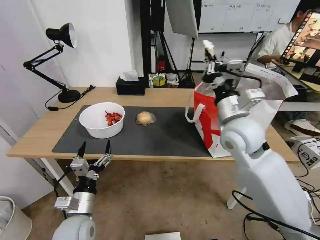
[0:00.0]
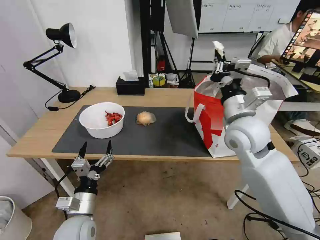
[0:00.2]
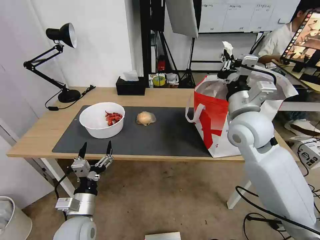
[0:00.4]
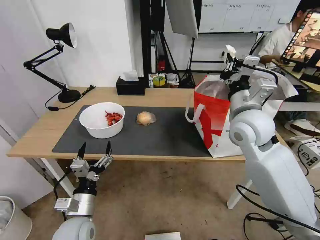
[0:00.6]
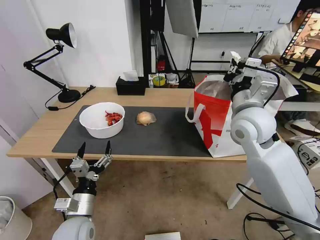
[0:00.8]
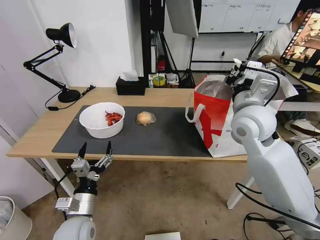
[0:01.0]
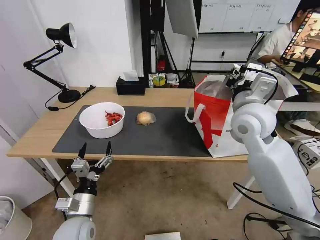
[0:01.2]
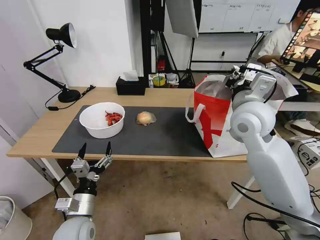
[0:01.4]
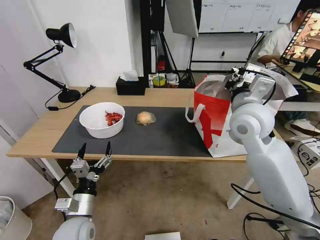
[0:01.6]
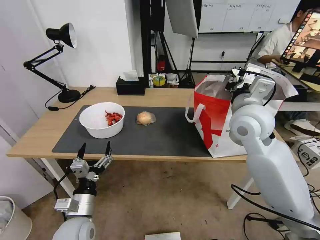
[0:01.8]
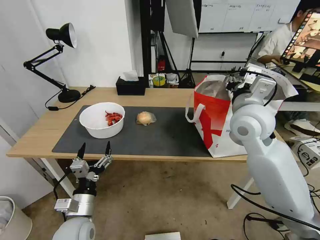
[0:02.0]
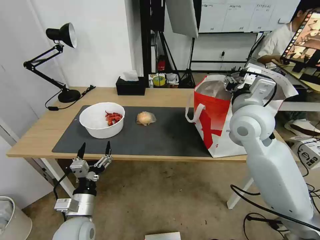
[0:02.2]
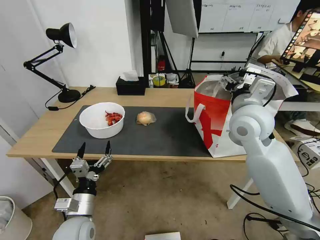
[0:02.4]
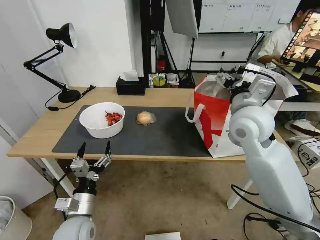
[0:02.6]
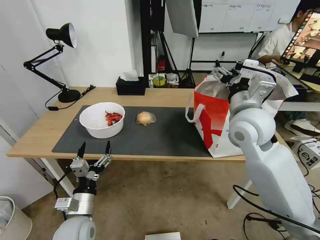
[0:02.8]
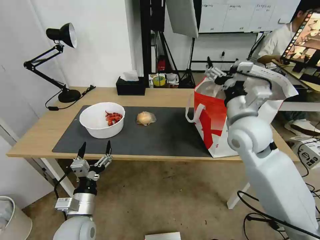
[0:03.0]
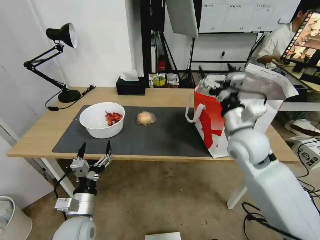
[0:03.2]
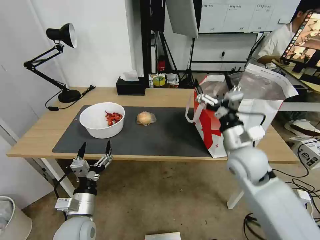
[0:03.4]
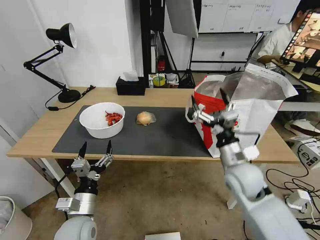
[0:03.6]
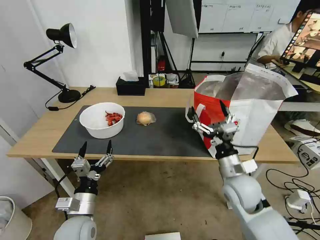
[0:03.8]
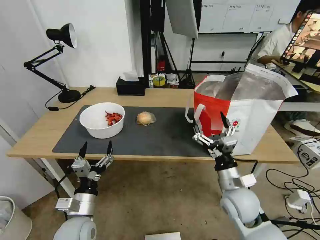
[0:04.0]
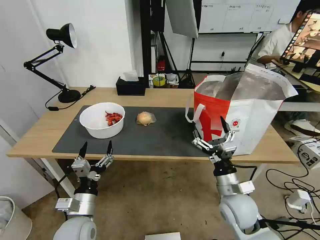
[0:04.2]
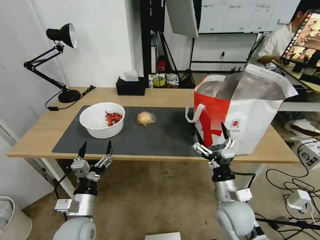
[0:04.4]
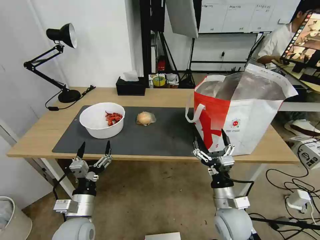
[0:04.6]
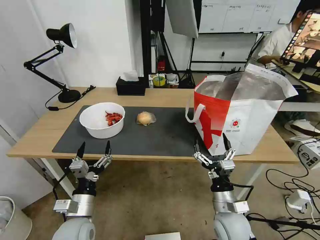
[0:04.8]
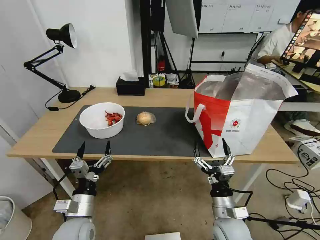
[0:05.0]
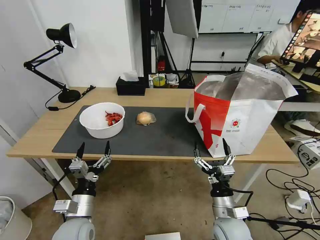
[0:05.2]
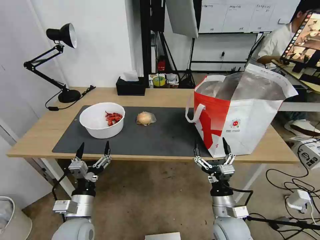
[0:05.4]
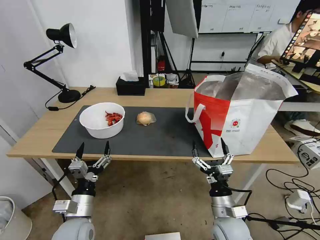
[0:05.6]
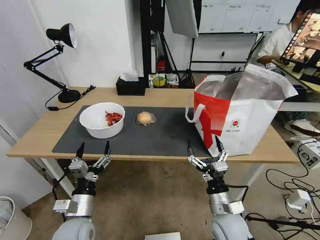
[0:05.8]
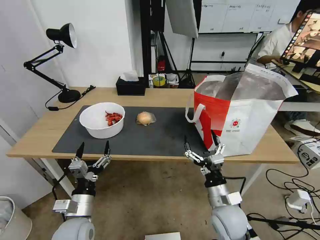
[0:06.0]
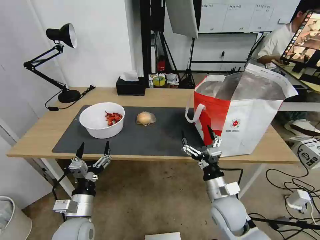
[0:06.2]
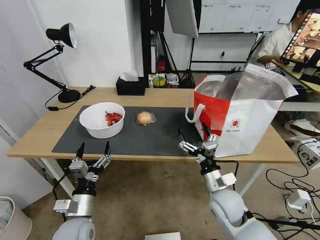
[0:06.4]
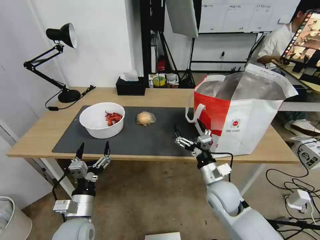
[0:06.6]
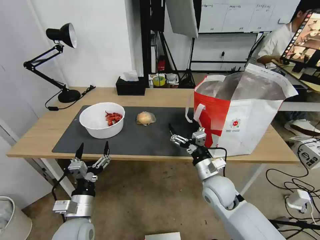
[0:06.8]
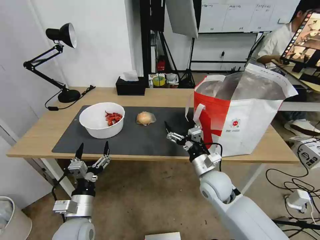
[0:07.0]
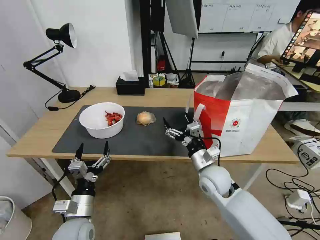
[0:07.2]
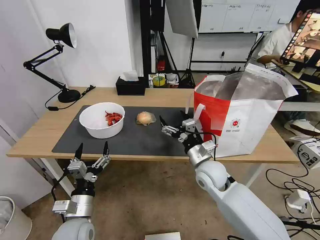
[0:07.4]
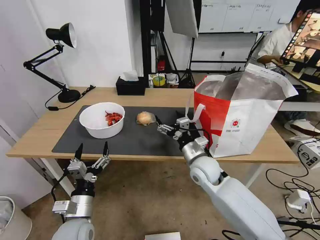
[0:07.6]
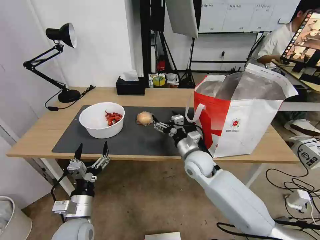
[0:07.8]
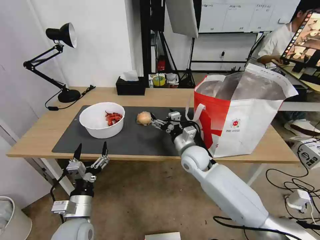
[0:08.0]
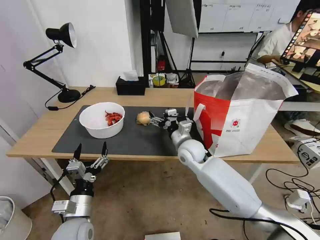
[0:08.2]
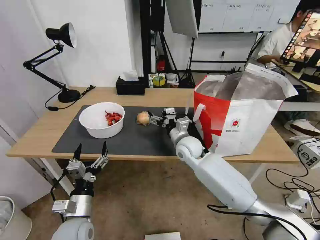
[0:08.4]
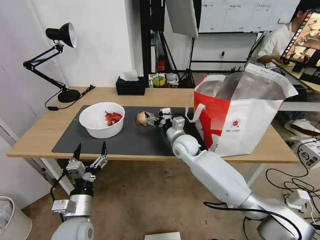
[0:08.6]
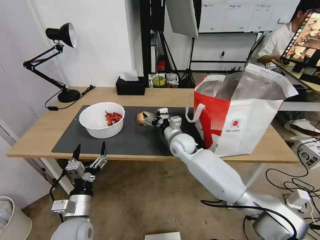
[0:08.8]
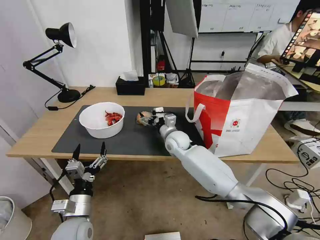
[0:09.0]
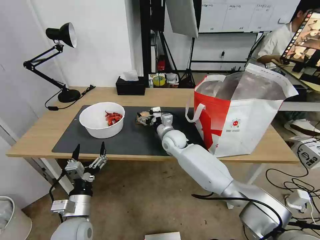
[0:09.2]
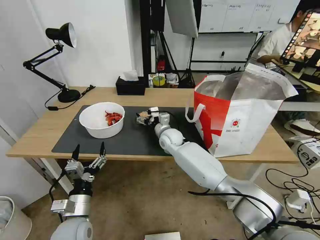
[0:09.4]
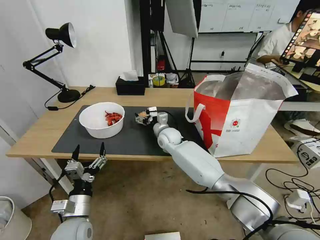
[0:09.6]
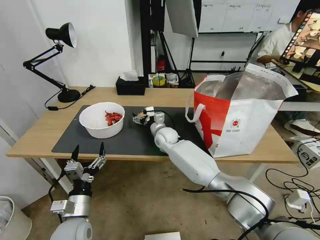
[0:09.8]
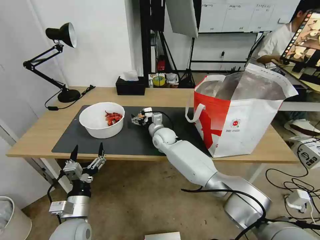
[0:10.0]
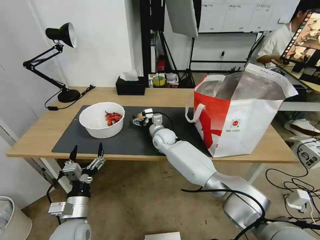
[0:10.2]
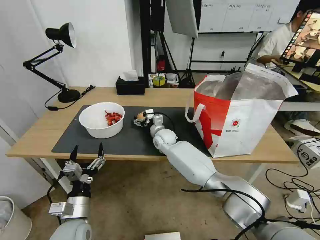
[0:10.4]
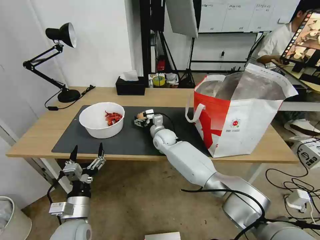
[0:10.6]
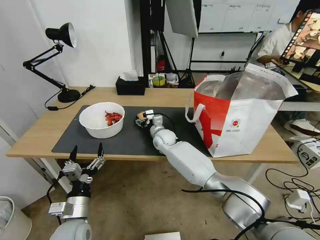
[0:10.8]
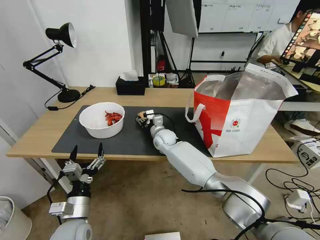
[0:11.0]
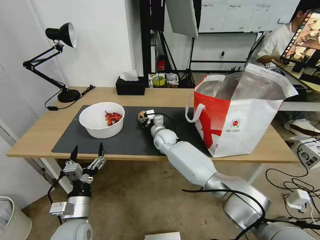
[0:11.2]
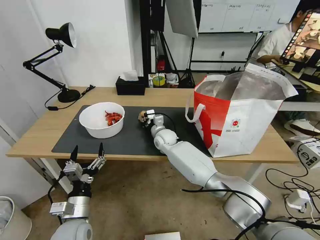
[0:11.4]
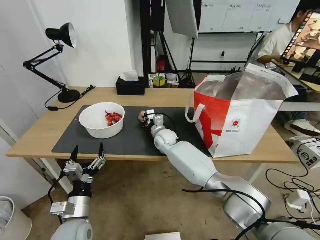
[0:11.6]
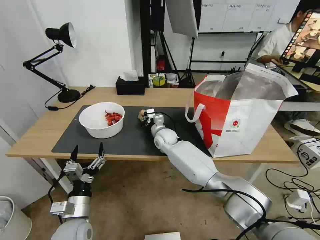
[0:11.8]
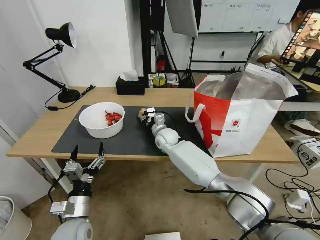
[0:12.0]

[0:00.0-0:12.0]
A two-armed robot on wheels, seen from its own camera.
Task of the whole recording: Pick up the trash from the table and place it into the takeout bag.
0:01.6 to 0:03.0: The right gripper opens up.
0:03.0 to 0:04.4: The right gripper travels downward and backward by approximately 25 cm.
0:04.4 to 0:06.0: The grippers stay close to where they were, moving slightly.
0:06.0 to 0:07.6: The right gripper travels forward by some 15 cm.
0:07.6 to 0:09.0: The right gripper goes some 15 cm forward and to the left.
0:09.0 to 0:10.4: The right gripper heads to the left, covering about 5 cm.
0:10.4 to 0:12.0: The right gripper closes up.

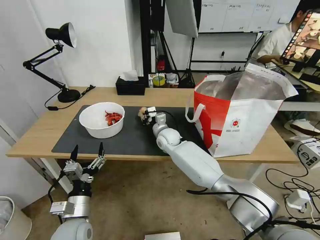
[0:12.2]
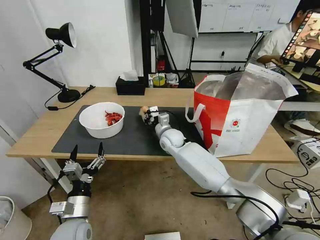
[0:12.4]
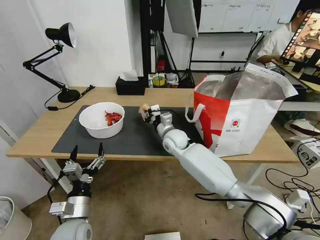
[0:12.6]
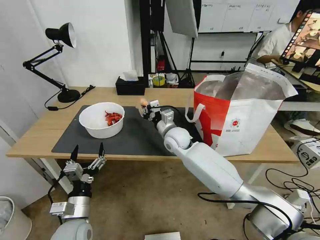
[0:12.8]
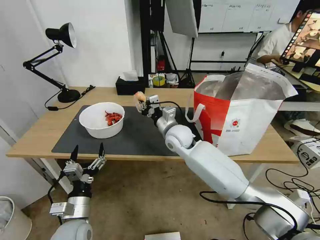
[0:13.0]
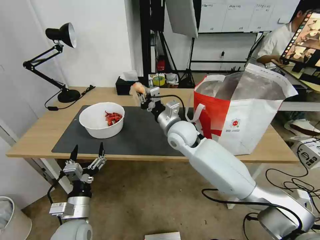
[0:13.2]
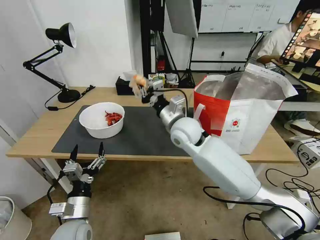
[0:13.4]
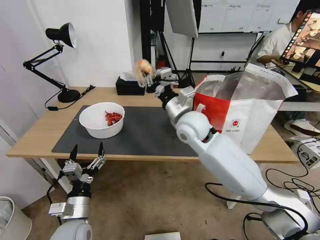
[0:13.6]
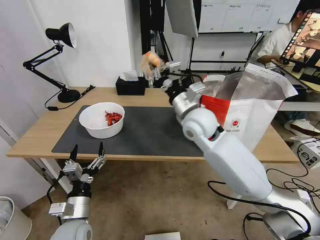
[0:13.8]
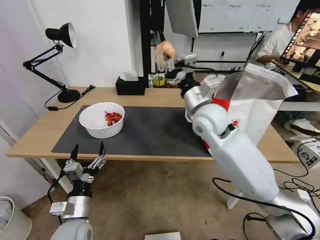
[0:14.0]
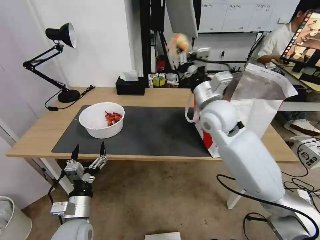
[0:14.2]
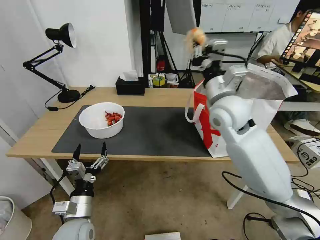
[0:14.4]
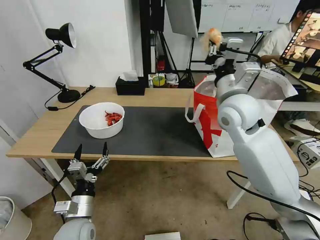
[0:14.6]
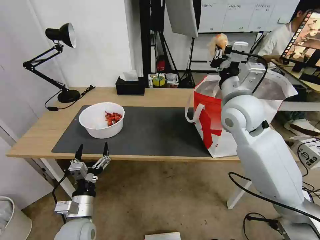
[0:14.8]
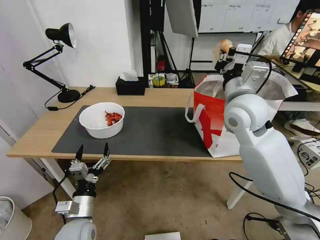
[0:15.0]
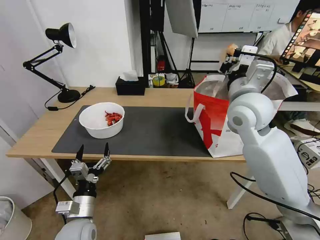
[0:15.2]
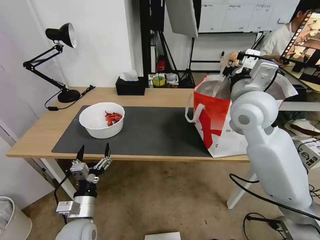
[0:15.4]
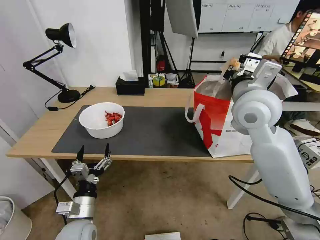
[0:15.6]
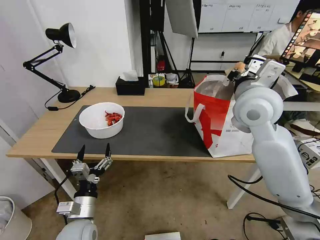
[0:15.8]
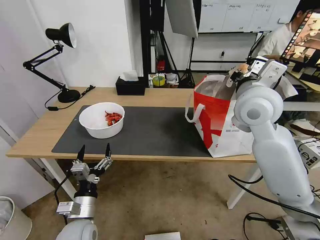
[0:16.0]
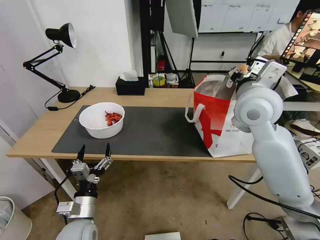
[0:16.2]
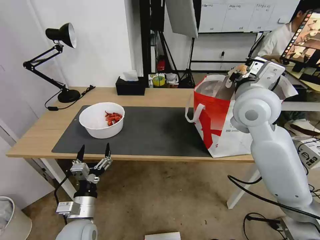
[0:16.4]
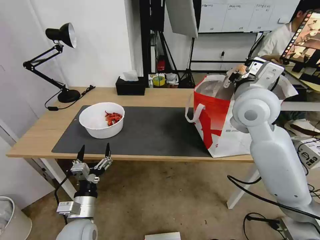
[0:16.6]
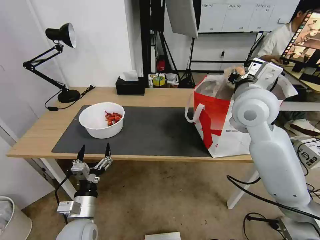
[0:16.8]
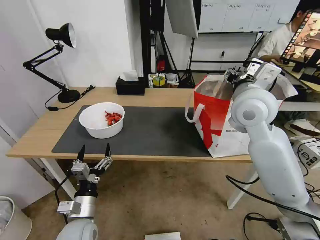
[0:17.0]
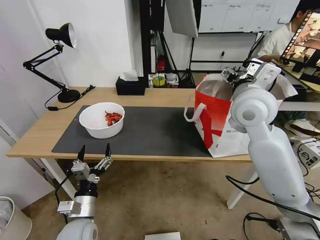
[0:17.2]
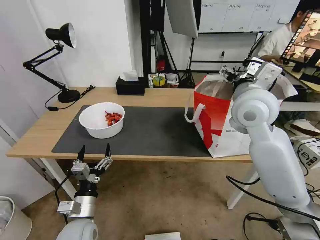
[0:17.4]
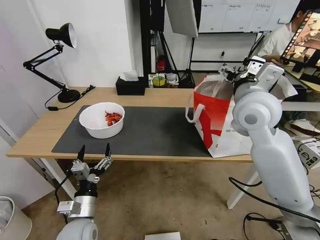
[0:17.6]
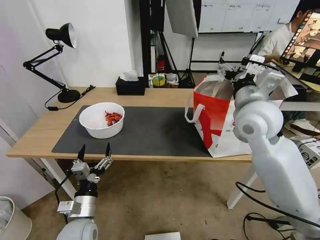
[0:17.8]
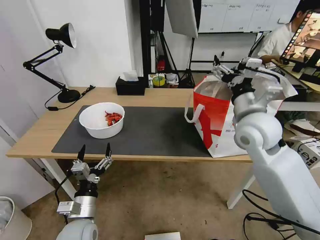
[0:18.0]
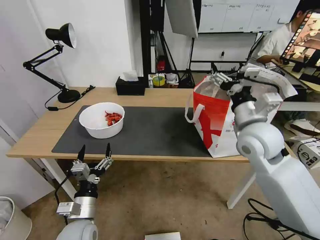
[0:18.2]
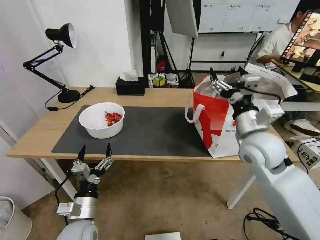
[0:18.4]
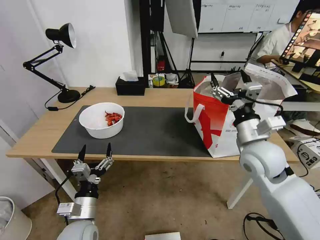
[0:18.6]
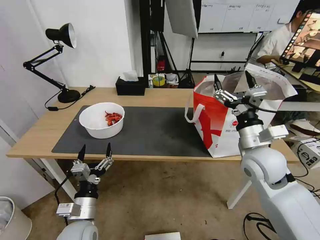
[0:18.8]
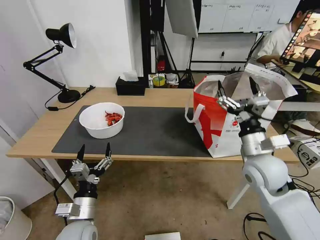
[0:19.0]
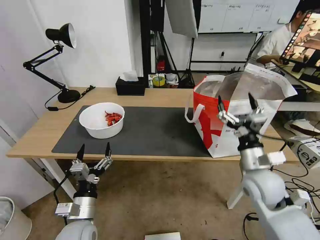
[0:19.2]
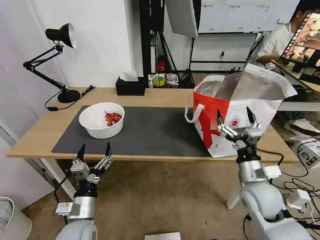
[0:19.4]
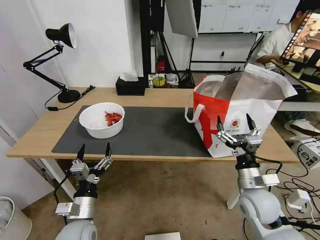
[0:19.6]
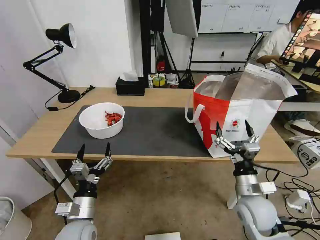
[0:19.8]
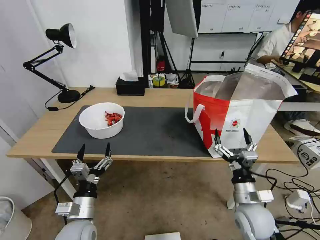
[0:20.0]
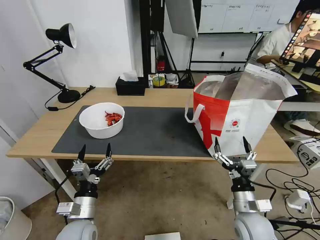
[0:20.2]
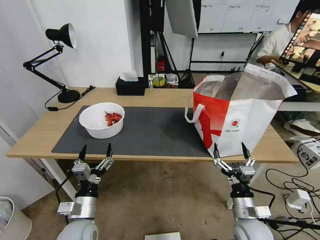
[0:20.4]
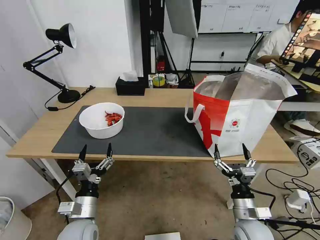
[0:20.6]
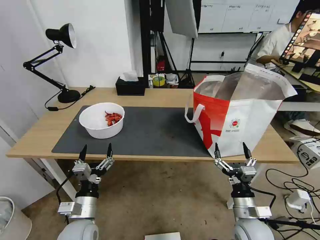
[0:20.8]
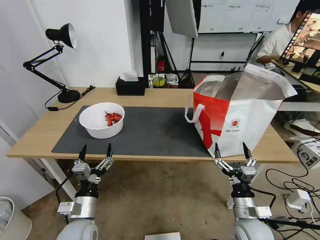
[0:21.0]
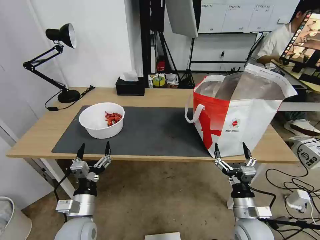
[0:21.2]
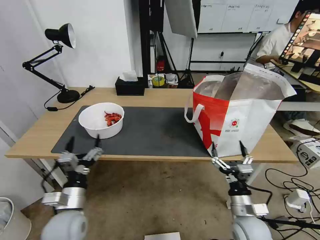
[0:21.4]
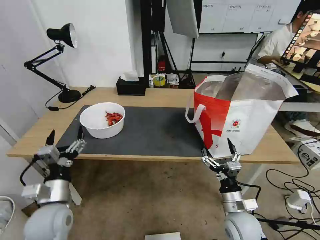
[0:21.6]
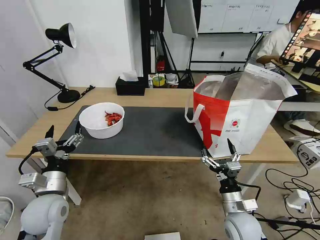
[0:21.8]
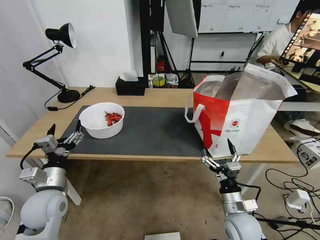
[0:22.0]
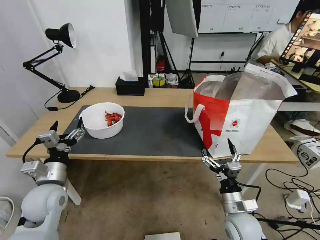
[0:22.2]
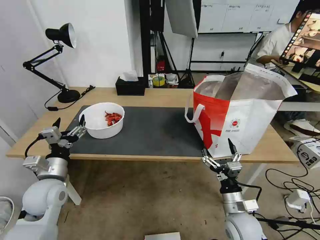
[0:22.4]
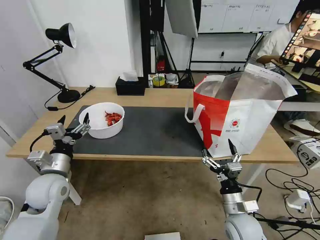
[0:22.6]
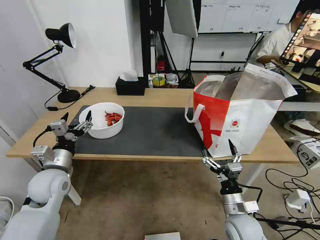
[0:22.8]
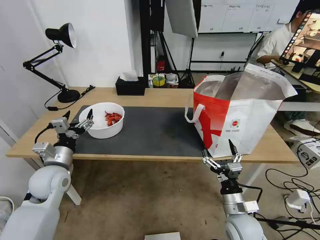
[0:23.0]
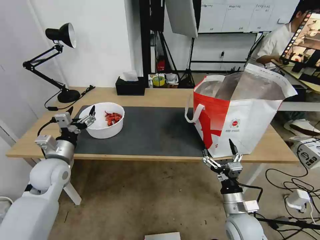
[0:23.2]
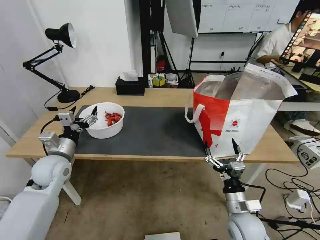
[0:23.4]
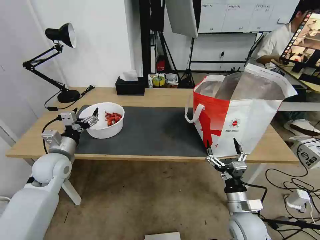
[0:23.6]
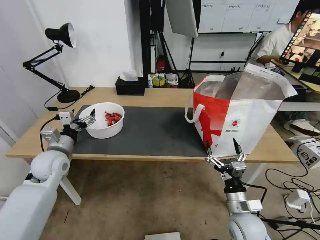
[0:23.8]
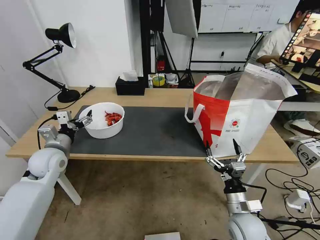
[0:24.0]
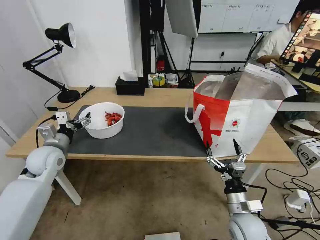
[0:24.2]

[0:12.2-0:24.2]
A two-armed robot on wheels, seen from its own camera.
Task of the whole recording: Pick up the trash from the table and place it into the takeout bag.
0:12.2 to 0:13.8: The right gripper is displaced upward, backward and to the right by about 20 cm.
0:13.8 to 0:15.2: The right gripper heads to the right and upward, covering approximately 10 cm.
0:15.2 to 0:16.6: The grippers make only small movements.
0:16.6 to 0:18.2: The right gripper heads downward, covering about 10 cm, and opens up.
0:18.2 to 0:19.8: The right gripper heads downward and backward, covering approximately 20 cm.
0:19.8 to 0:21.2: The right gripper is displaced downward by roughly 5 cm.
0:21.2 to 0:22.6: The left gripper moves forward, to the left and upward, approximately 15 cm.
0:22.6 to 0:24.2: The left gripper heads forward, covering about 10 cm.
